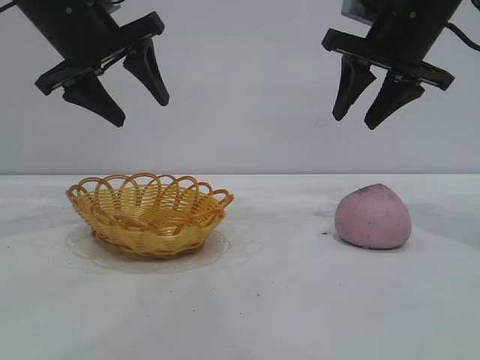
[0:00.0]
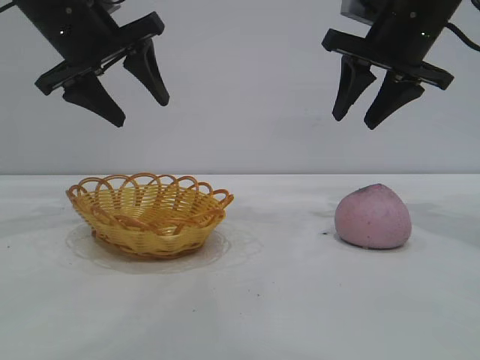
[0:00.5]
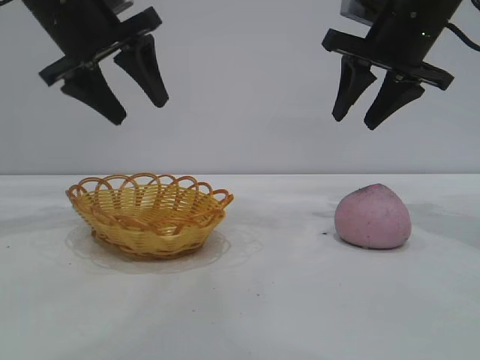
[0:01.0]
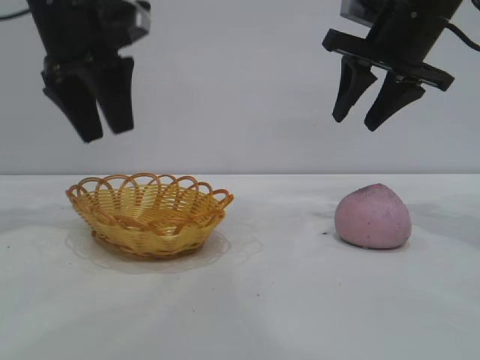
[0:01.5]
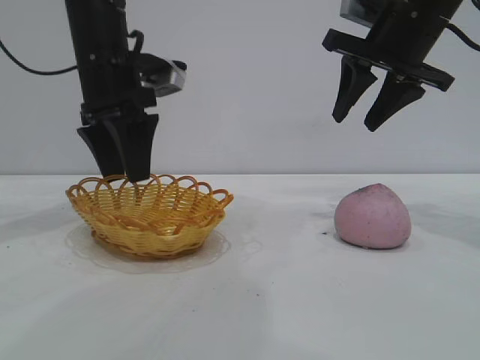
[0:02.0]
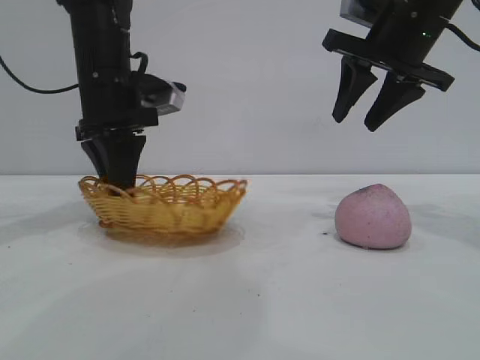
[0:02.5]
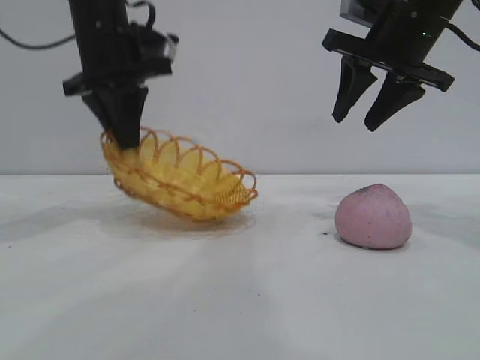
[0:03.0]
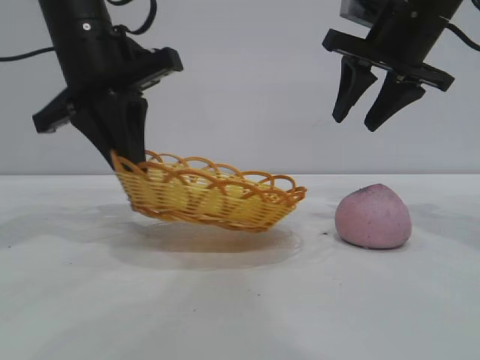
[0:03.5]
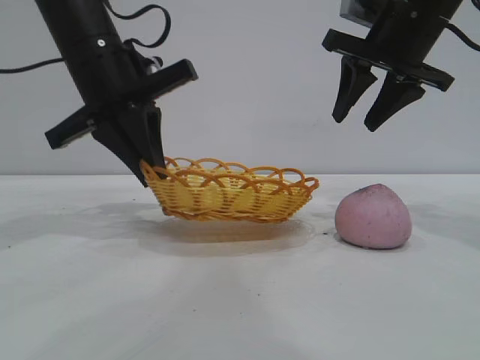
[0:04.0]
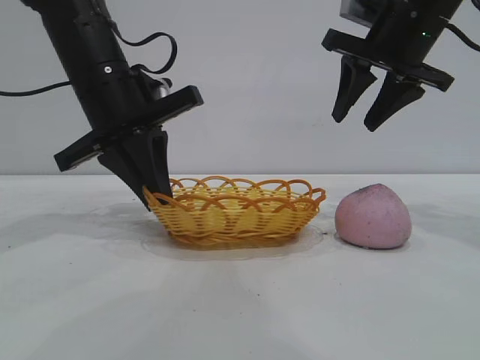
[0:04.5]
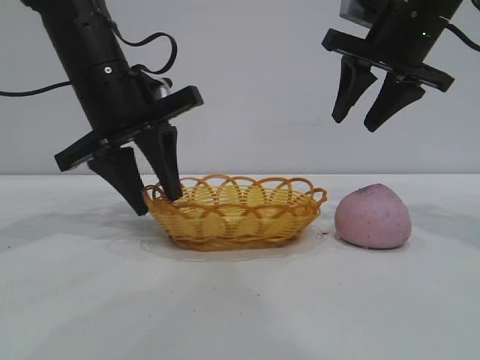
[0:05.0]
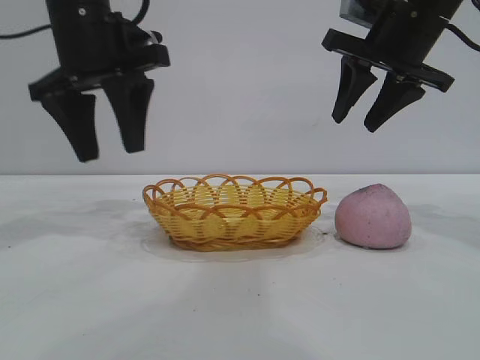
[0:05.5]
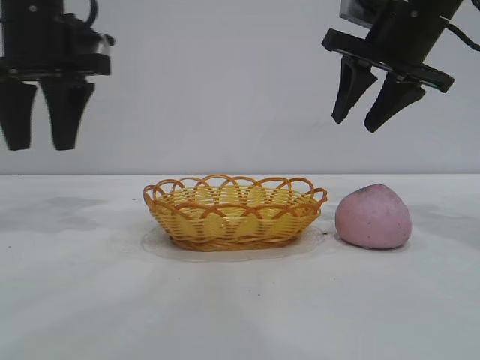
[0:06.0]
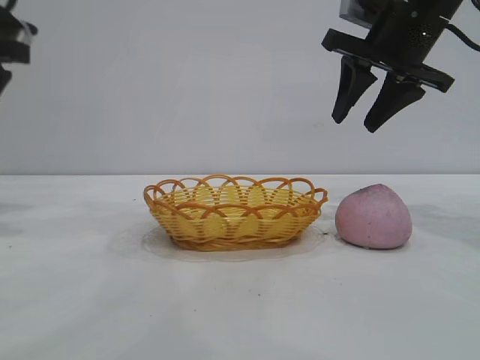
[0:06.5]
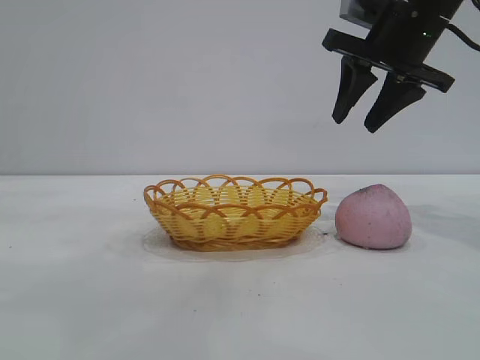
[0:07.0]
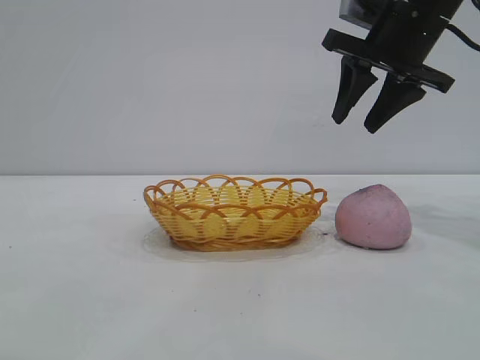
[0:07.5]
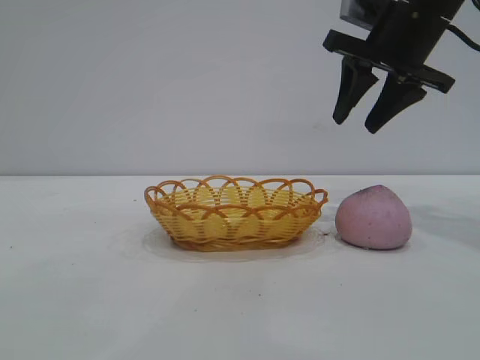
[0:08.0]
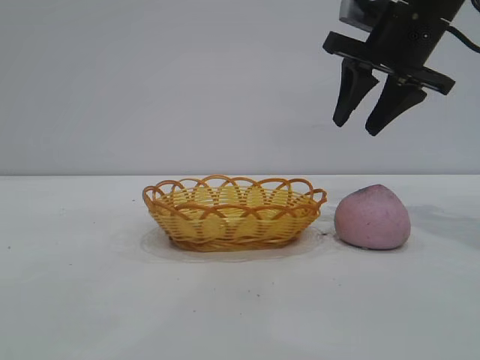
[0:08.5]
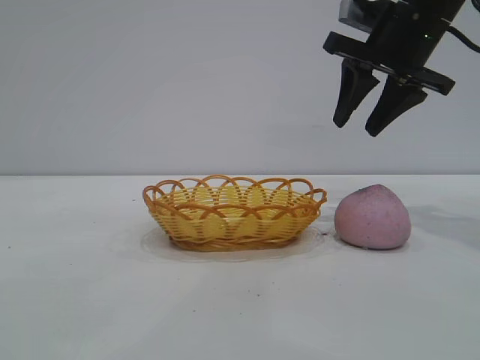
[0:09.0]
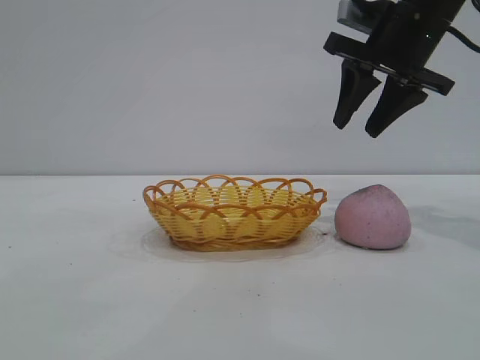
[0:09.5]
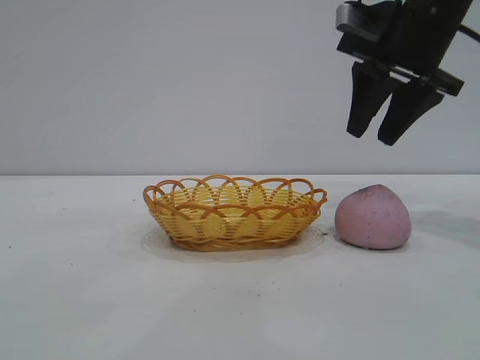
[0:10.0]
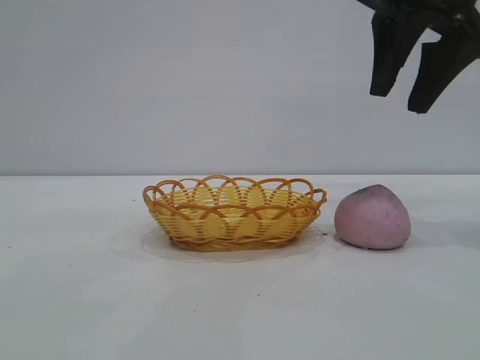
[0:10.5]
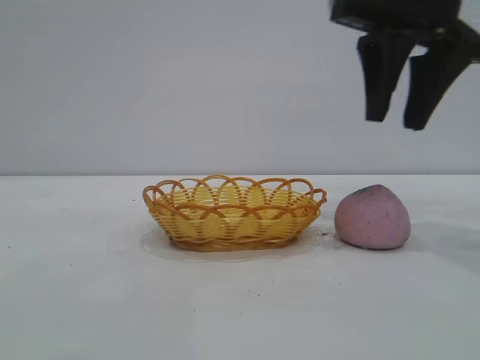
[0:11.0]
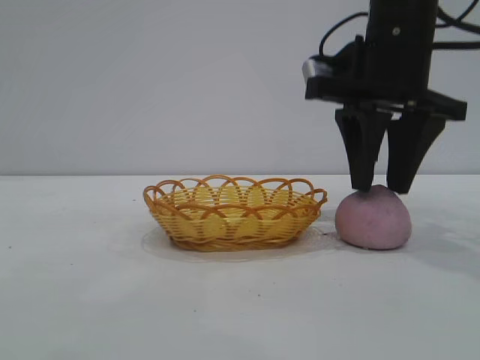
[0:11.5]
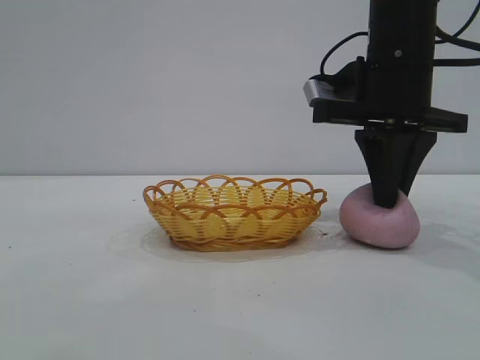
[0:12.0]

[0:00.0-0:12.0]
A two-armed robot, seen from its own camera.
Task of the whole recording: pick up the peach and put it into the basket.
Step, 0:00.0 to 0:05.5: Move the basket to the center of view.

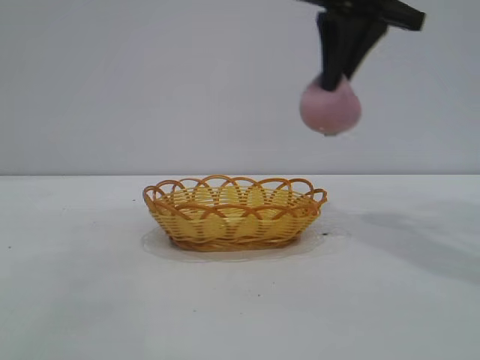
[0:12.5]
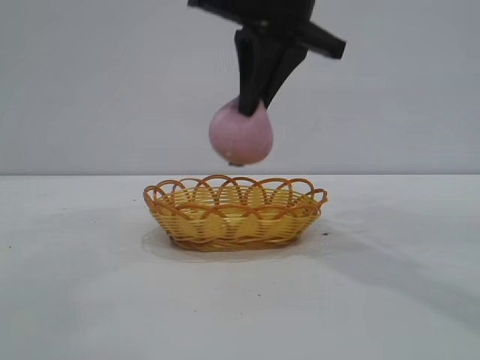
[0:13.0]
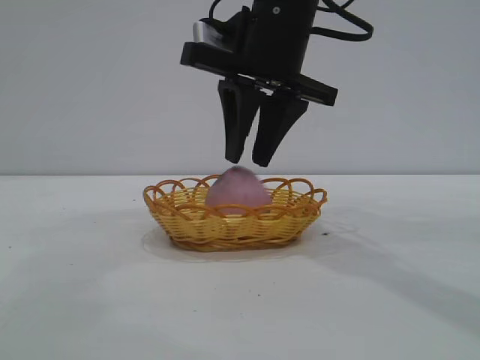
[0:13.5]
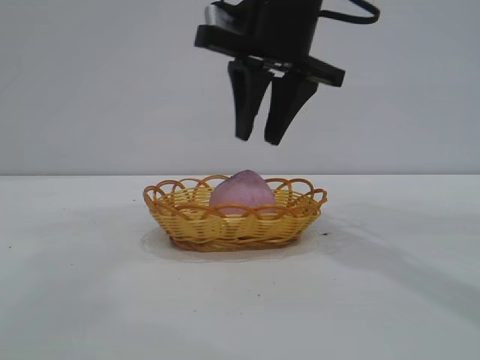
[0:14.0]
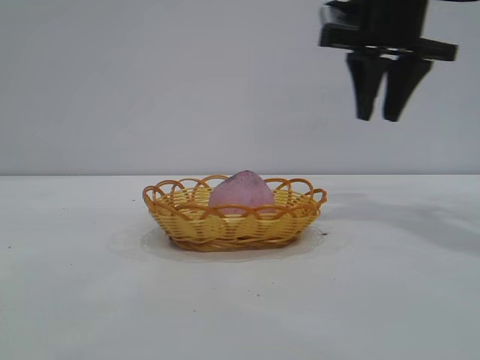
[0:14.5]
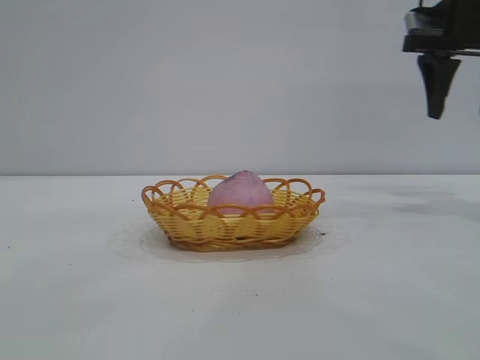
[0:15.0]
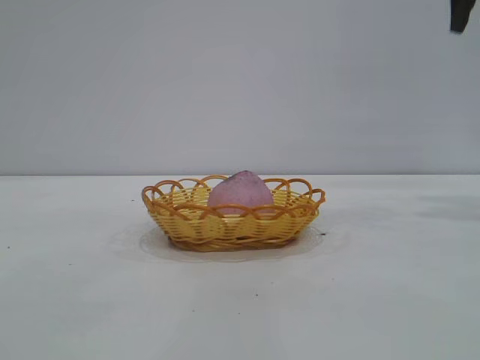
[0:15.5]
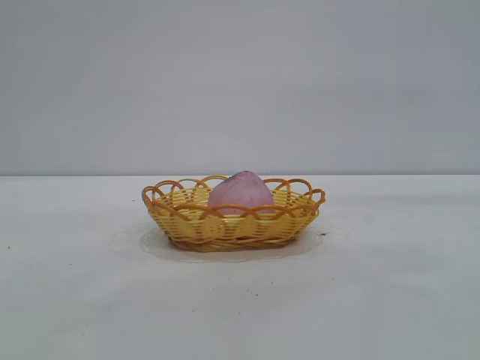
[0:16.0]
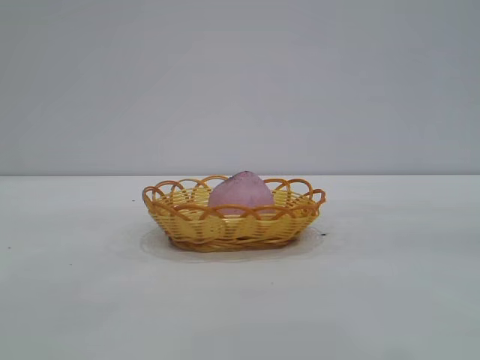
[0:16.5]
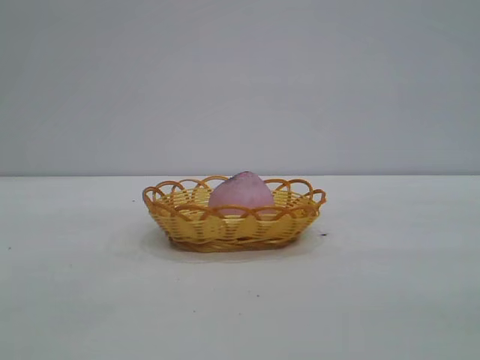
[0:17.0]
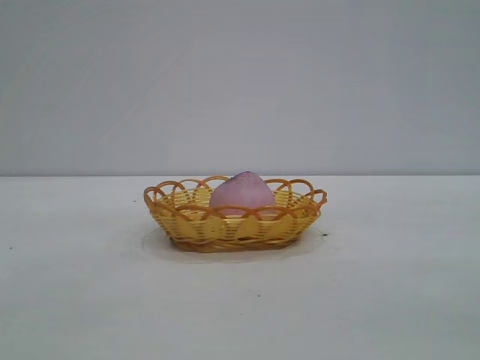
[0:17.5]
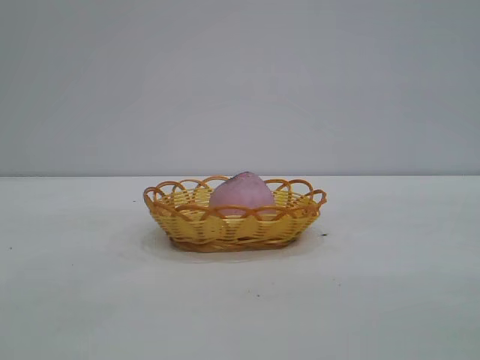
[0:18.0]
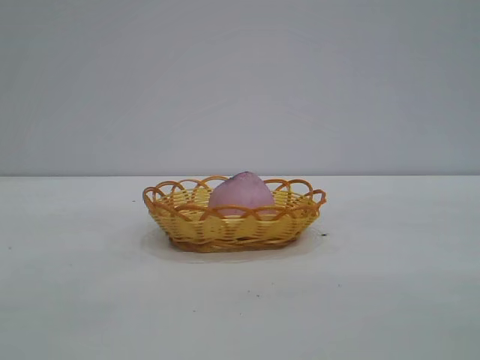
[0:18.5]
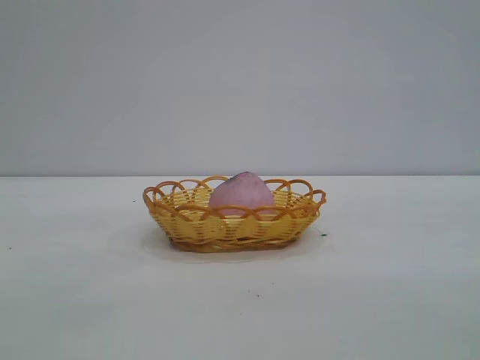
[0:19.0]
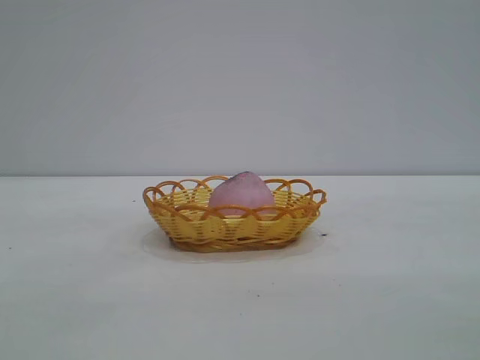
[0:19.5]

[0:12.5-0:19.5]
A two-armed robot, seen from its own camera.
Task of the whole recording: pick up the peach and put it into the basket.
Step, 0:12.5 to 0:14.0: place the peach into the basket.
